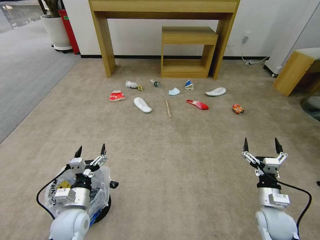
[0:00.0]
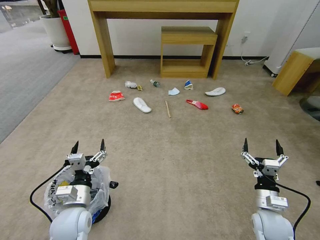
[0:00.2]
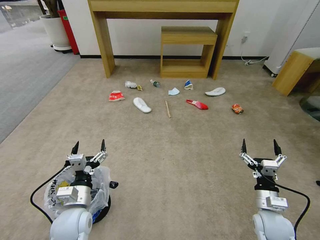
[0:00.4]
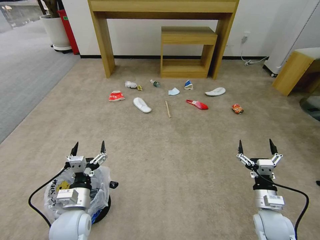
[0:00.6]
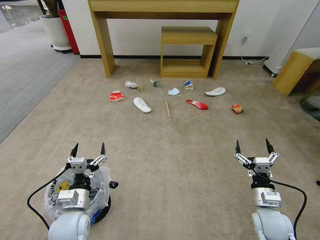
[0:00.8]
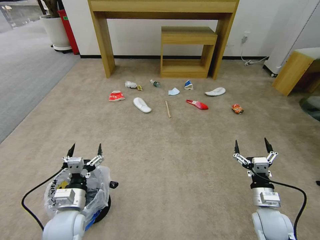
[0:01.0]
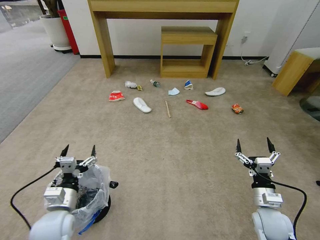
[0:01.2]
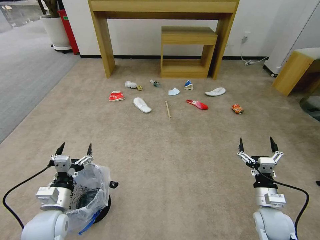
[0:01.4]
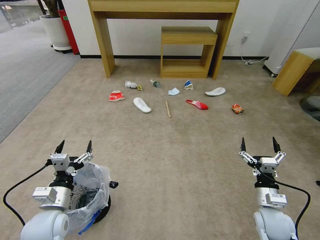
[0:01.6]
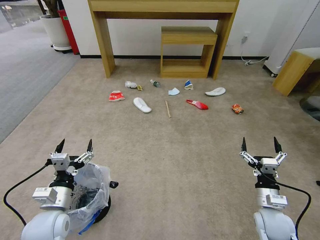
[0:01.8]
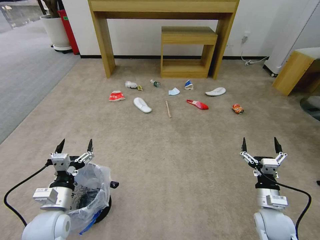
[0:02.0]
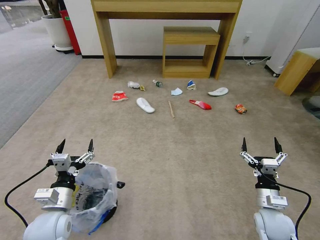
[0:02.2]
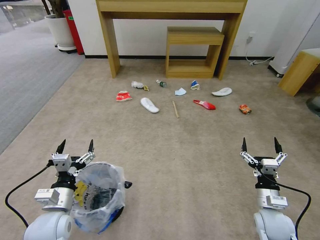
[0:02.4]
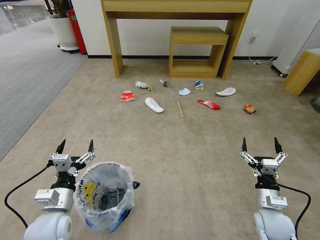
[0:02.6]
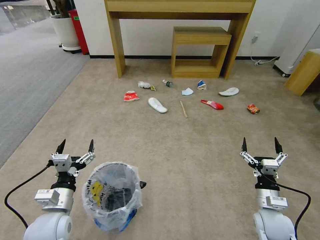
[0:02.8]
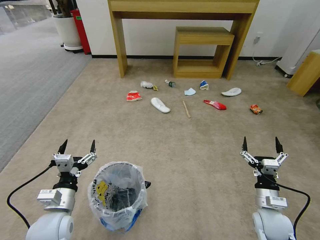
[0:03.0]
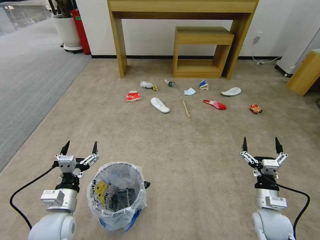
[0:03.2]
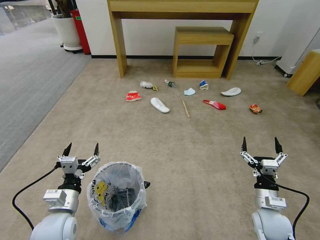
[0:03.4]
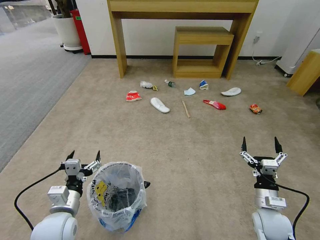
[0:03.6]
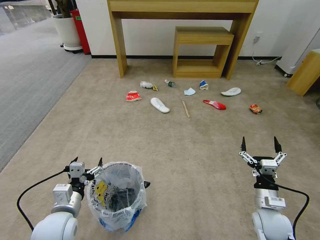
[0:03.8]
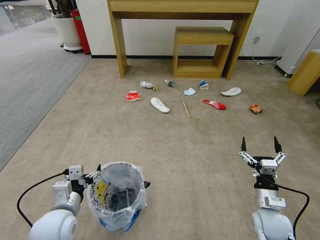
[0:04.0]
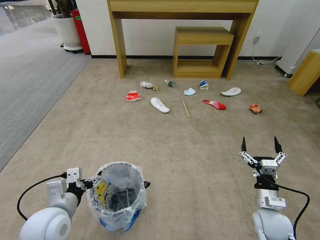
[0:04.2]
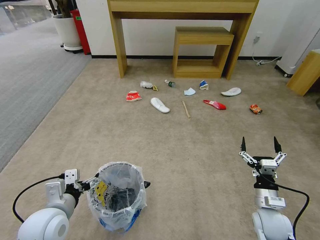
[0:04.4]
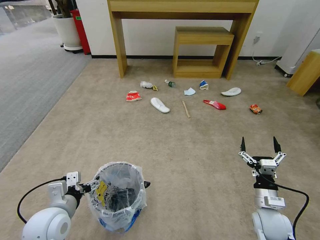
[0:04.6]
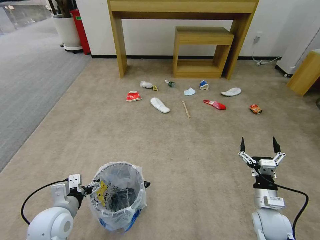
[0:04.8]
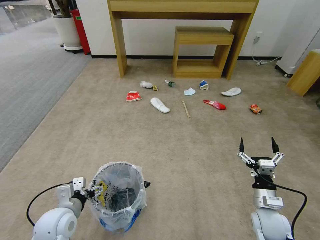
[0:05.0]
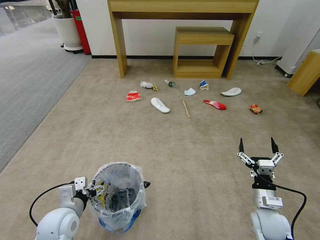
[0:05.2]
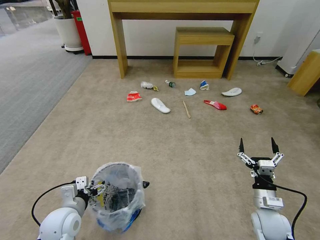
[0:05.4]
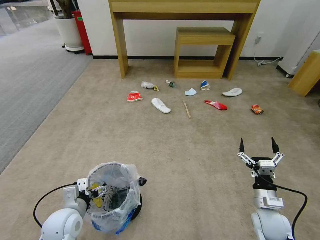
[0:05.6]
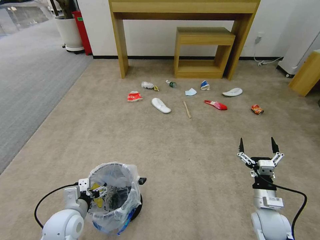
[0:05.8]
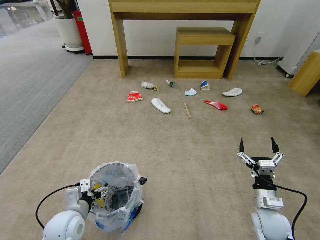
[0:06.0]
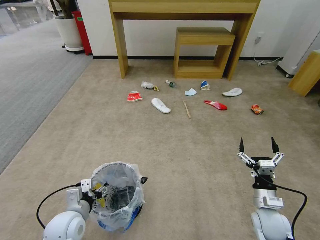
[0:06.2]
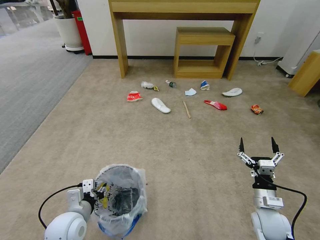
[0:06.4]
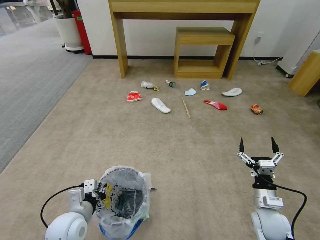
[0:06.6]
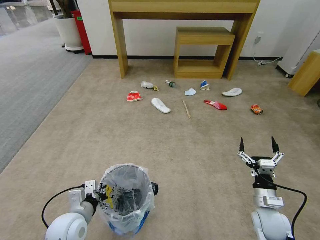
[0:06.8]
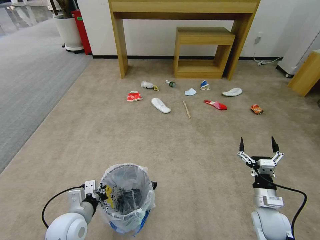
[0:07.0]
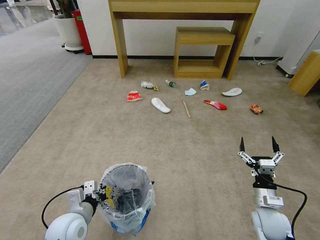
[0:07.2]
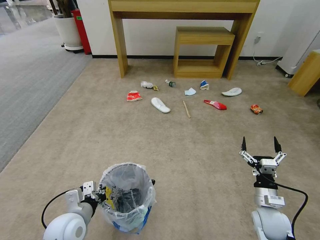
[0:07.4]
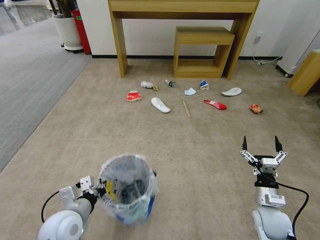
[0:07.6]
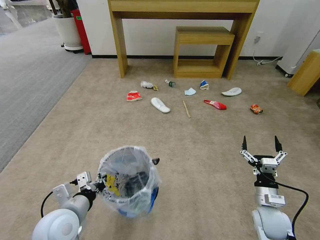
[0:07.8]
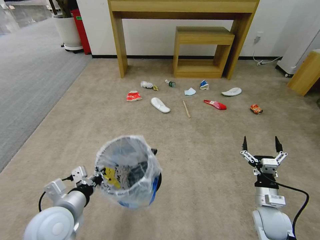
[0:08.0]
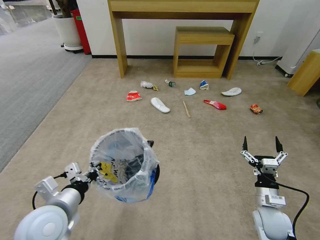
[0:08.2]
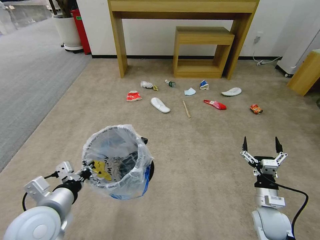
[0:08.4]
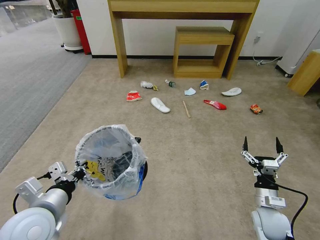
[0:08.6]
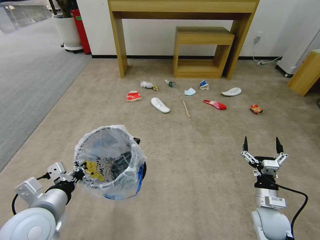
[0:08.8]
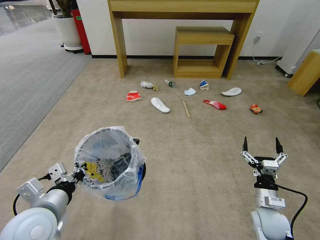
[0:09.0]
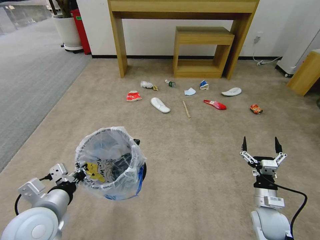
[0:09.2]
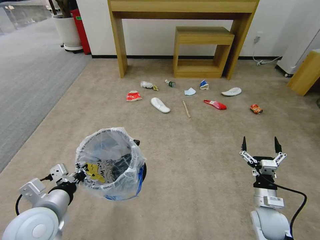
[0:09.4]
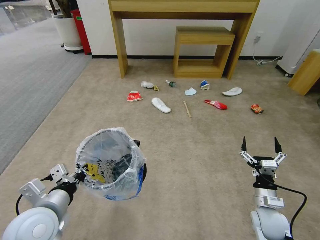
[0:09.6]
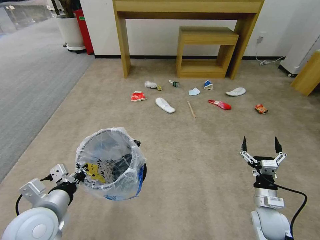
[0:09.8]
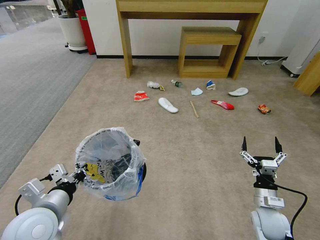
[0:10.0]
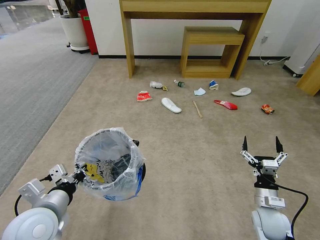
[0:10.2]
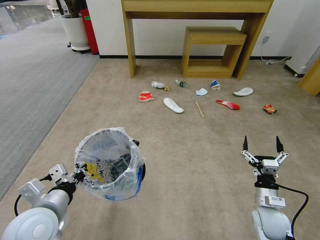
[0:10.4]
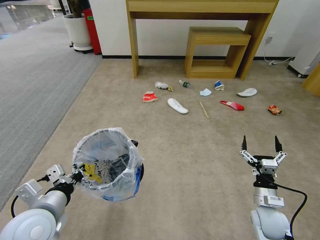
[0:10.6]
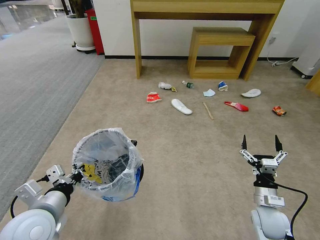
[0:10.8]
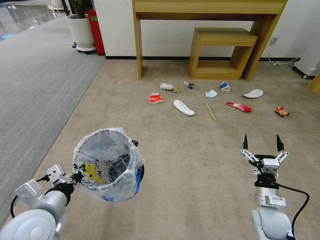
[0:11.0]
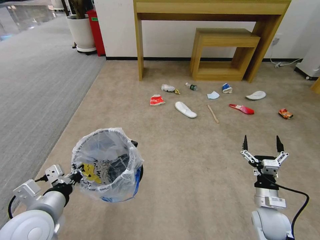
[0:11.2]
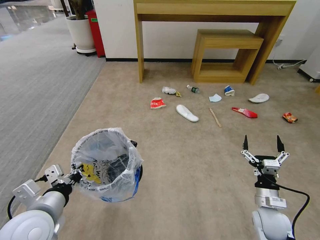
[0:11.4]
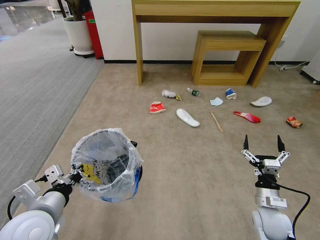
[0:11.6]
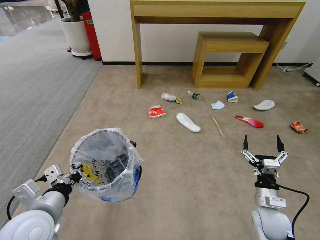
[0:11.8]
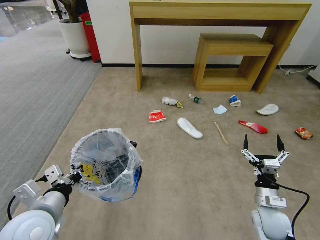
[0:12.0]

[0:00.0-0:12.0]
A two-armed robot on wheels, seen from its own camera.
Task of the whole recording: Pick up the trash bin and place the garbage on the floor into it.
0:04.4 to 0:06.0: The left gripper shifts about 5 cm downward.
0:06.0 to 0:07.6: The left gripper moves about 5 cm, and closes up.
0:07.6 to 0:09.0: The left gripper travels upward by roughly 10 cm.
0:09.0 to 0:10.4: Neither gripper changes place.

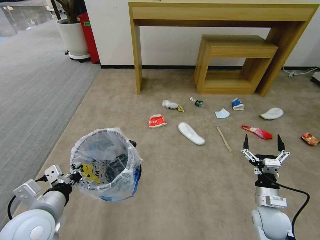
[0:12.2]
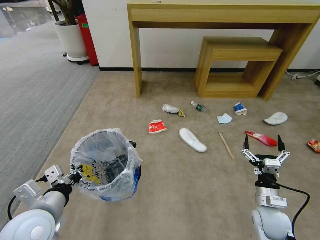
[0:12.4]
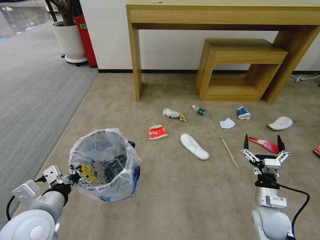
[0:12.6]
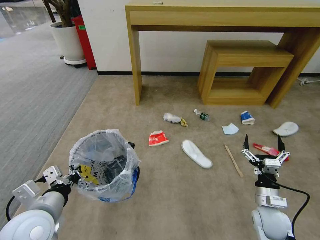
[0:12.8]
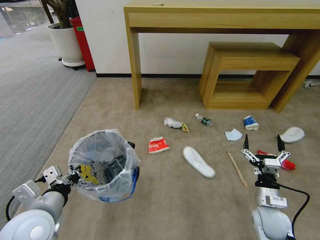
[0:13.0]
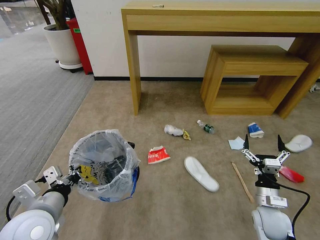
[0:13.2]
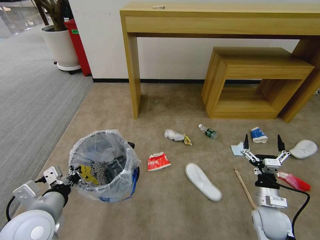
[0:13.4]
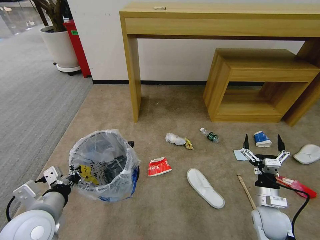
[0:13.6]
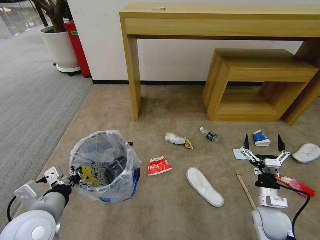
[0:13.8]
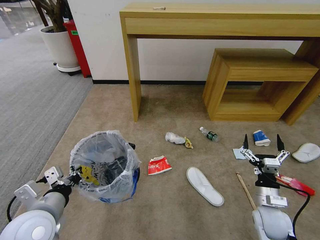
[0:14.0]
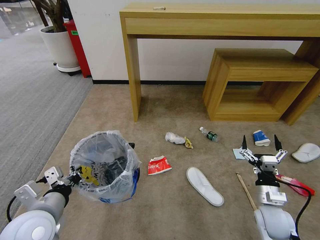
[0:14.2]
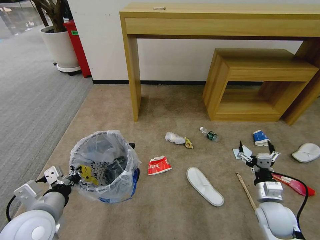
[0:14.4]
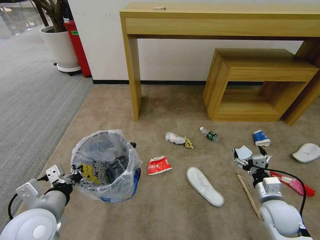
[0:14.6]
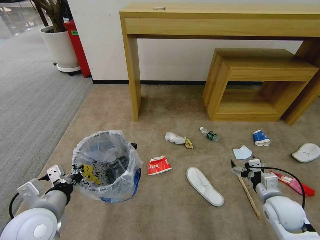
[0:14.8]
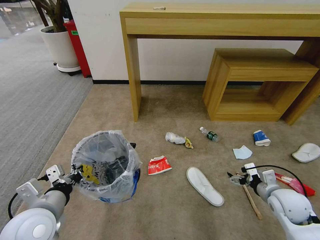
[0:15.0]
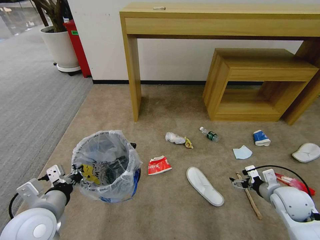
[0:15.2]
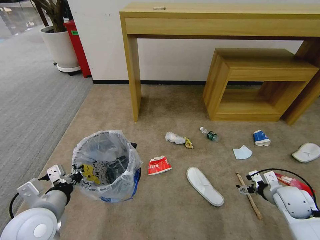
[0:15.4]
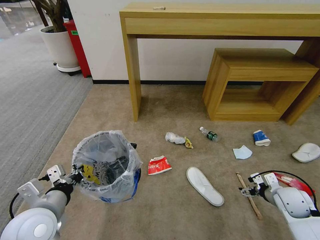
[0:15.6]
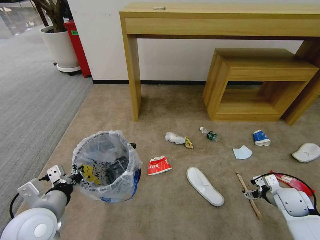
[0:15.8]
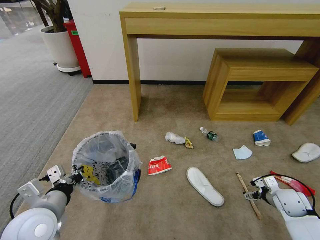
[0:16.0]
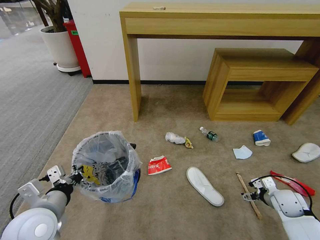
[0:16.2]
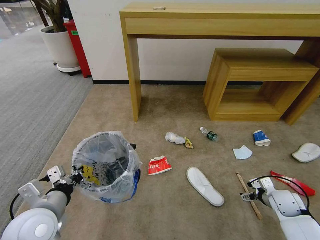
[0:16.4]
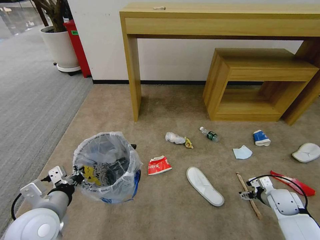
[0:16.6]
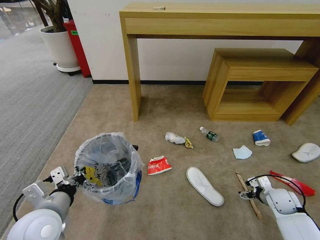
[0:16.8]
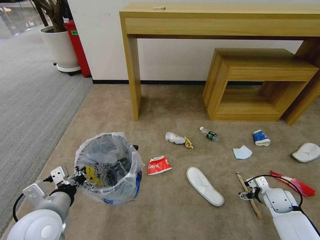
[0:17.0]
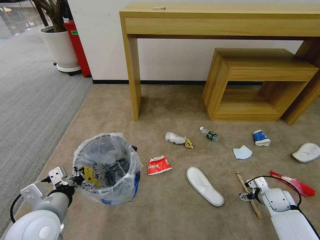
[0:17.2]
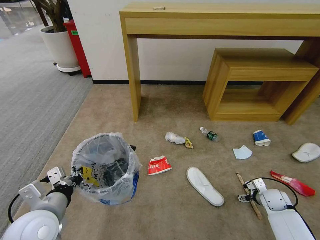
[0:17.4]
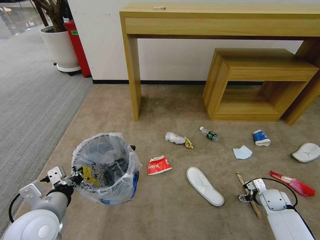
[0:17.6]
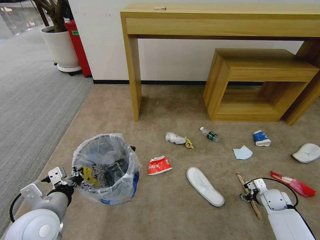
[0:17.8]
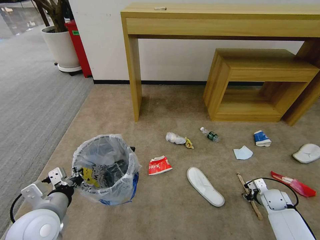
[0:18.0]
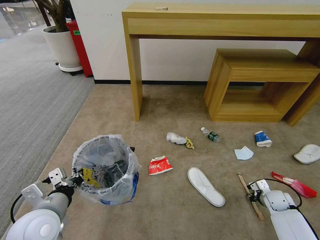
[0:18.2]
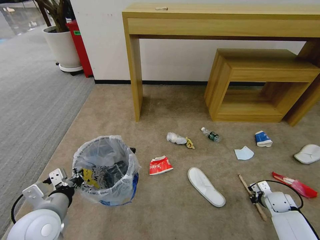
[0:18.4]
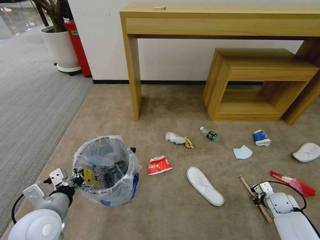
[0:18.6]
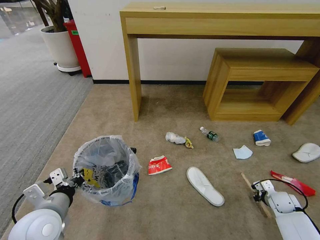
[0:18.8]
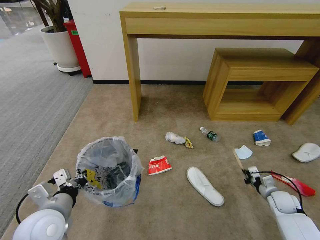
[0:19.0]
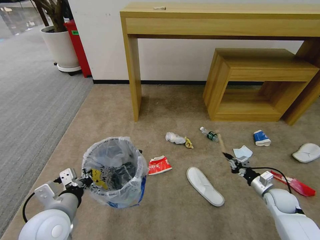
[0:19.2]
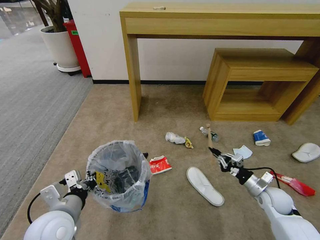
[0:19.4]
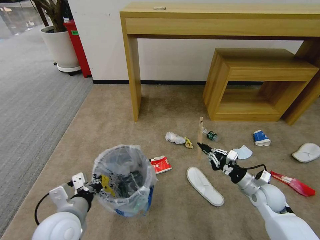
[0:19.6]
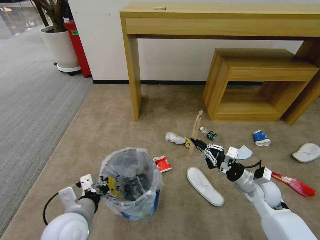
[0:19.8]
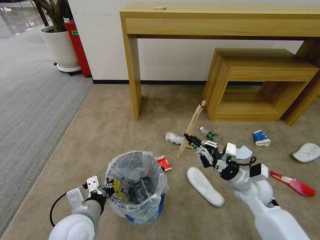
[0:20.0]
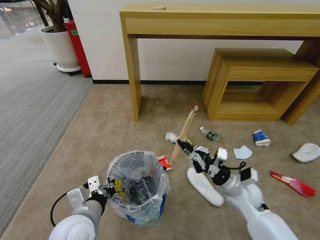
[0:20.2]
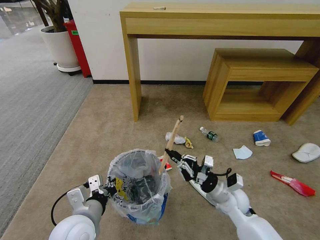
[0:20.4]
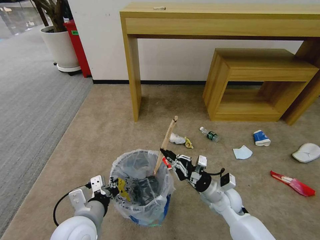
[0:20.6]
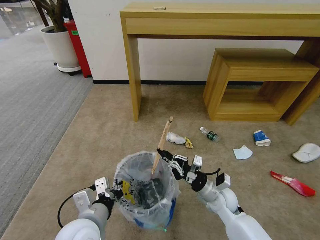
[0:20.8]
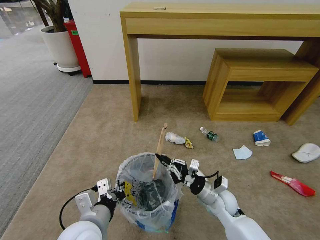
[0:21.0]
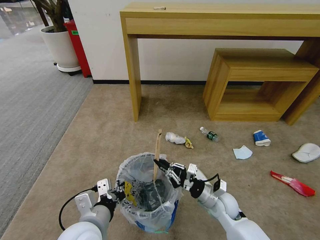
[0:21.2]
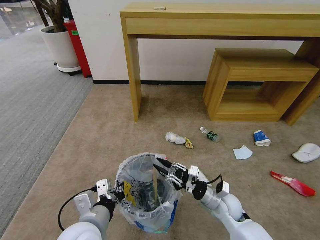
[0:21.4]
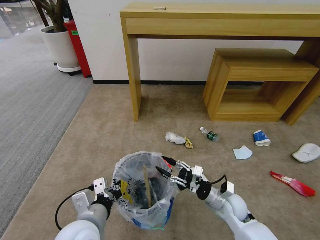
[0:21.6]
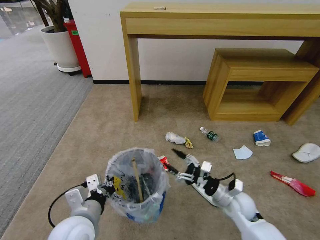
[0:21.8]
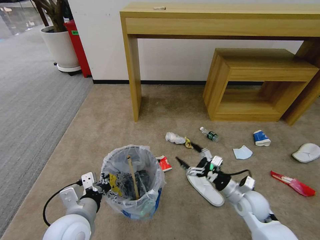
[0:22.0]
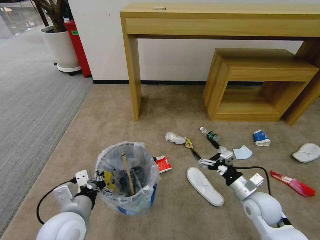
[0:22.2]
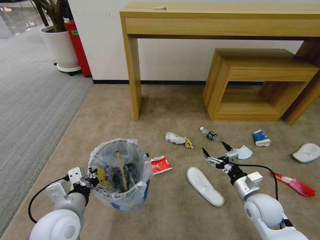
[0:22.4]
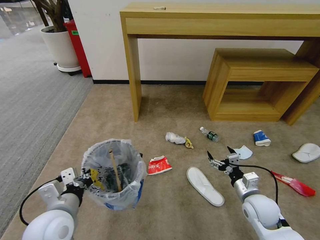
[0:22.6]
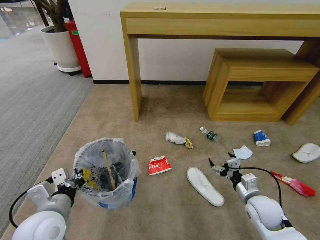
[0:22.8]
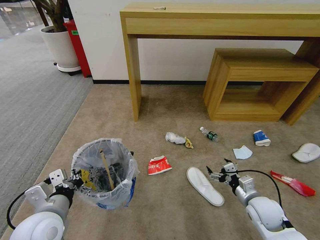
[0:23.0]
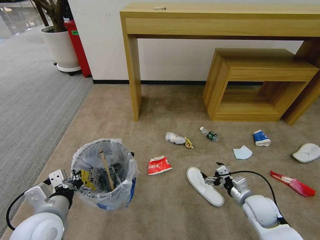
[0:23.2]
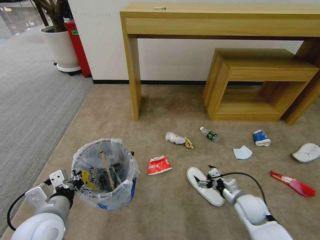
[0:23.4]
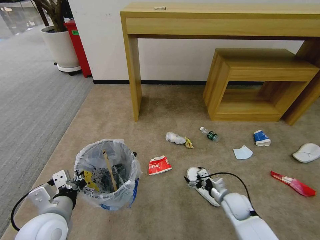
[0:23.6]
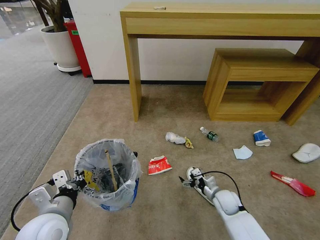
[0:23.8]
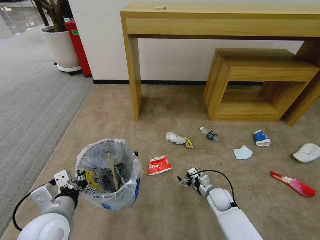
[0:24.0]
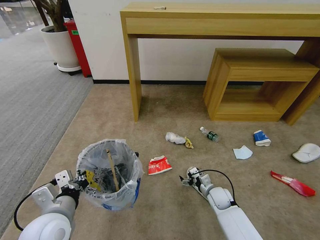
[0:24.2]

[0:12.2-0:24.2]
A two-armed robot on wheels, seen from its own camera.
Task of the whole recording: Pick up the trash bin and place the garbage on the floor into it.
0:13.8 to 0:15.2: The right gripper heads to the right and upward, covering about 10 cm.
0:15.2 to 0:16.6: The right gripper shifts roughly 10 cm downward and to the right.
0:16.6 to 0:18.2: The right gripper shifts approximately 5 cm downward, and closes.
0:18.2 to 0:19.8: The right gripper shifts some 25 cm to the left and upward, while the left gripper goes roughly 5 cm to the right.
0:19.8 to 0:21.2: The right gripper heads to the left and downward, covering roughly 15 cm.
0:21.2 to 0:22.6: The right gripper travels to the right by roughly 10 cm, and opens up, while the left gripper goes approximately 5 cm to the left.
0:22.6 to 0:24.2: The right gripper goes approximately 15 cm downward, forward and to the left.
